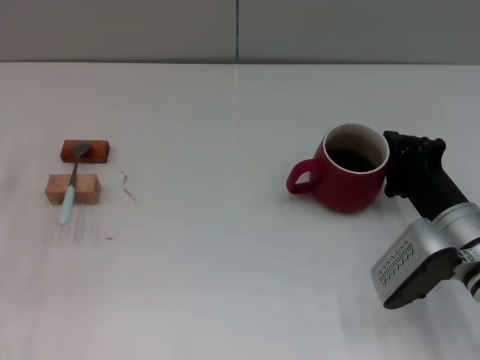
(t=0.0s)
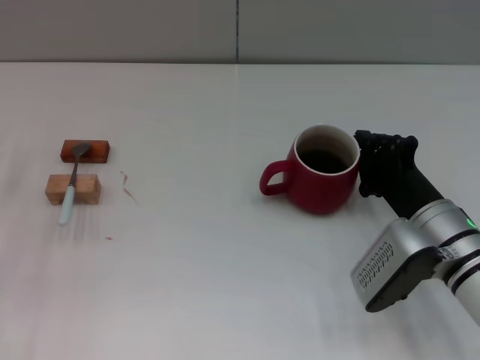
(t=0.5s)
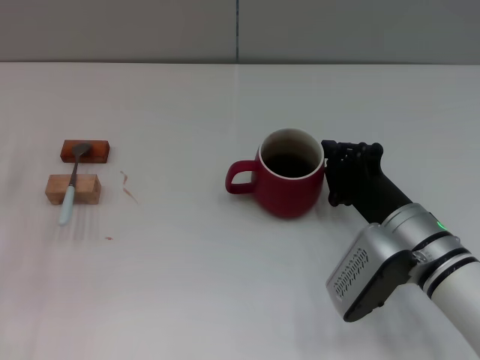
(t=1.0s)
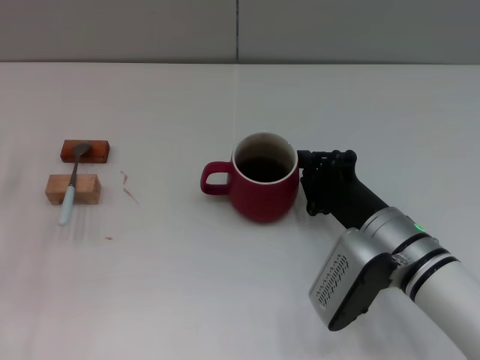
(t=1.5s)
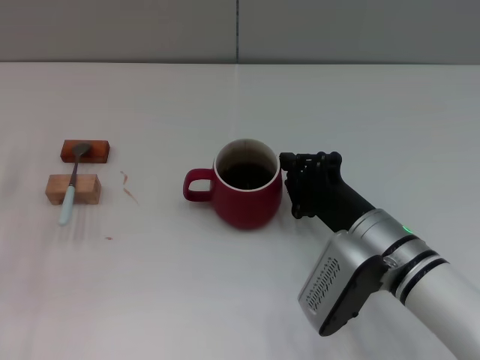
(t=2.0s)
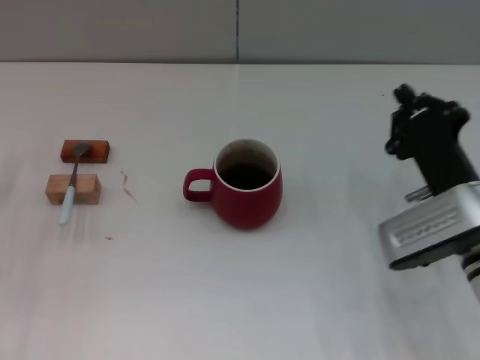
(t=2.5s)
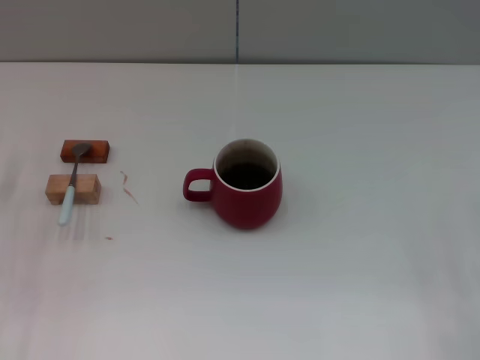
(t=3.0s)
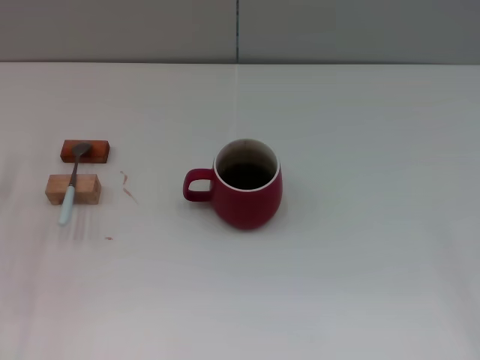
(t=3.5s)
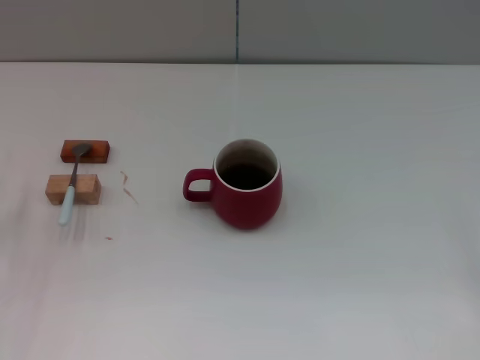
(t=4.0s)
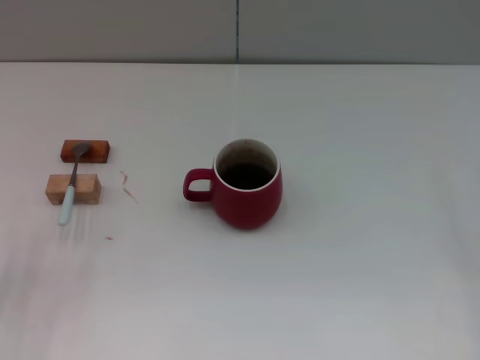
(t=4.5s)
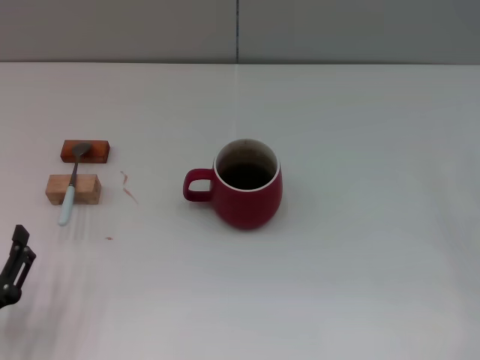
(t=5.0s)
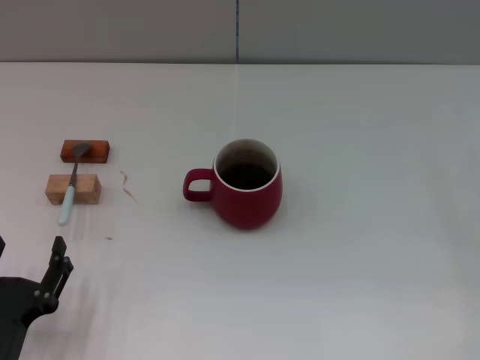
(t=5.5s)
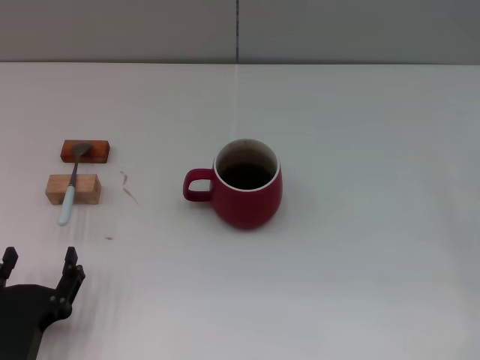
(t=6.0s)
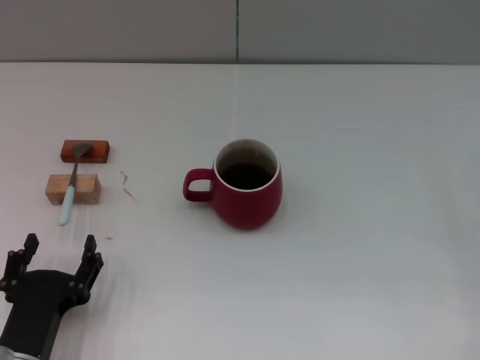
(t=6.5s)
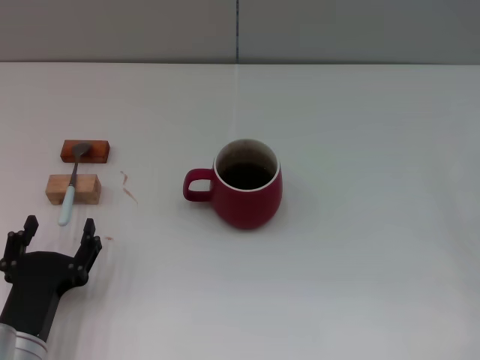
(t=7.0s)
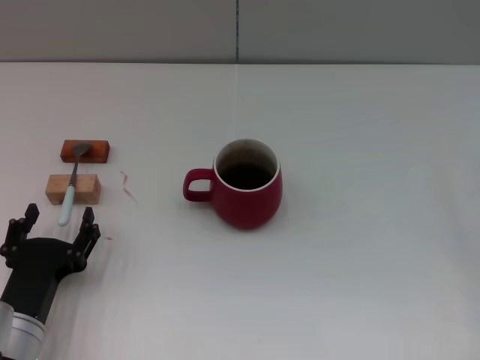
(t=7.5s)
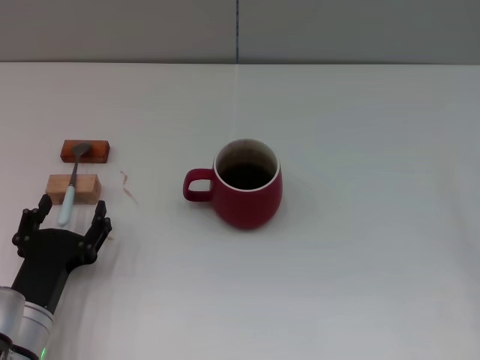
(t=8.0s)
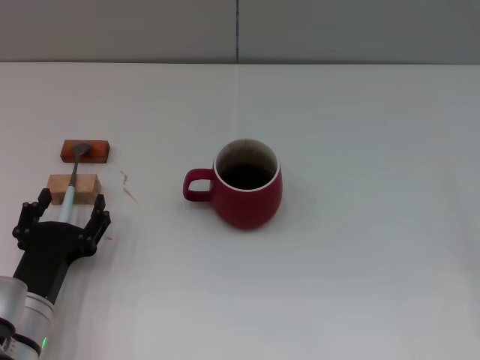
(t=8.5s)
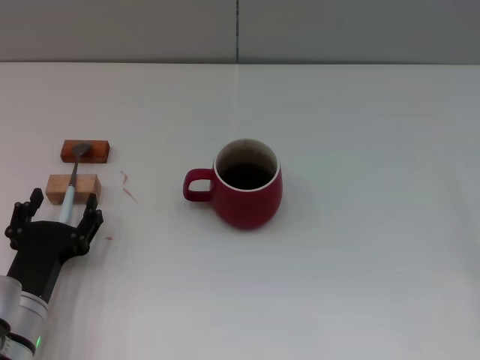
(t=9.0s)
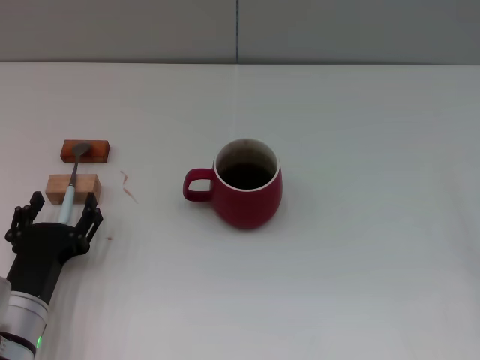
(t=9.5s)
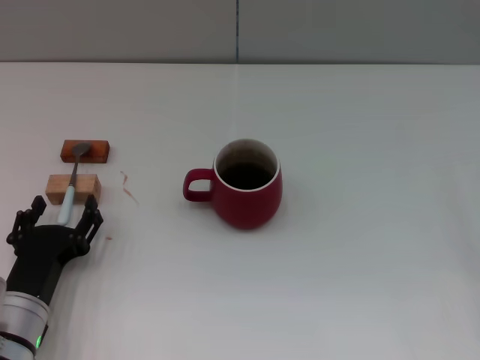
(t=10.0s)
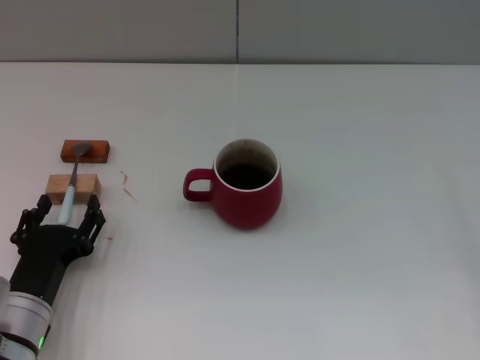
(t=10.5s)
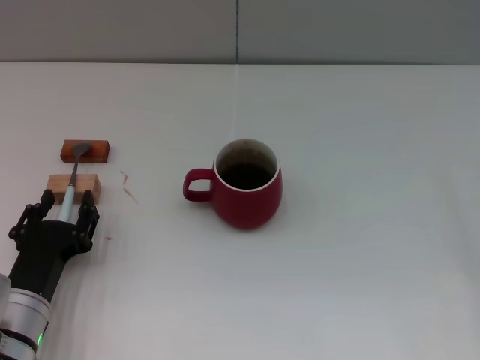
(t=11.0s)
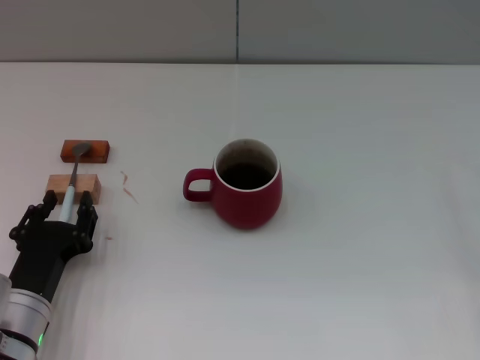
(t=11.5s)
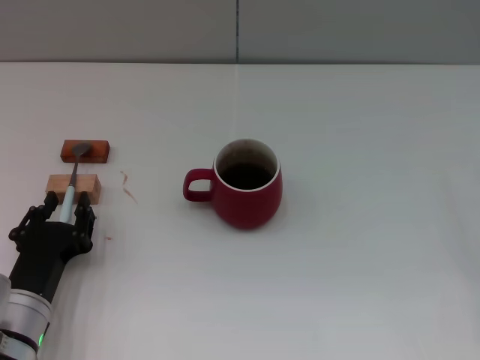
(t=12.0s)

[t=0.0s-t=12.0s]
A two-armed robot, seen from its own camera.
Task of the whole recording: Move the red cup to the center, lift the blue spoon, stir it three times in the cup, and put the spoon into the cup.
Step, t=0.0s to t=2.0s: Move the cup with coffee to the center of view with the right gripper.
t=0.0s to t=2.0s: The right gripper moves to the left, about 10 cm.
t=2.0s to t=4.0s: The left gripper ends up approximately 5 cm from where it was. Meanwhile the right gripper shifts about 25 cm to the right, and opens up.
t=4.0s to t=6.0s: The left gripper is displaced backward and to the right by about 20 cm.
t=6.0s to t=8.0s: The left gripper travels forward by approximately 5 cm.
t=8.0s to t=10.0s: There are only small adjustments of the grippers.
t=10.0s to t=12.0s: The left gripper closes its fingers.

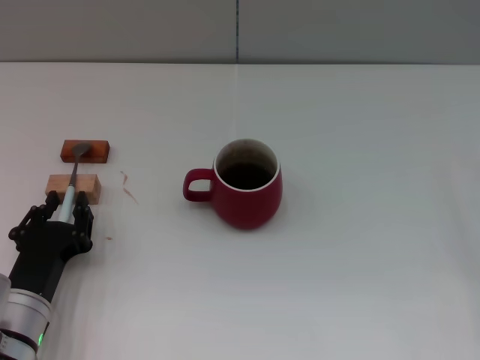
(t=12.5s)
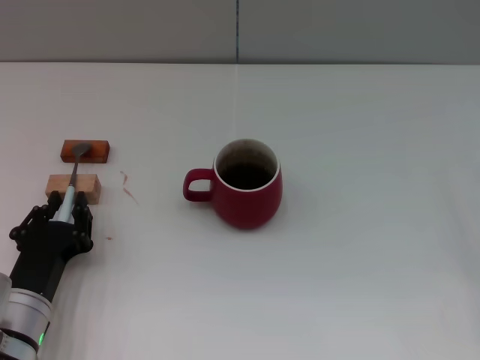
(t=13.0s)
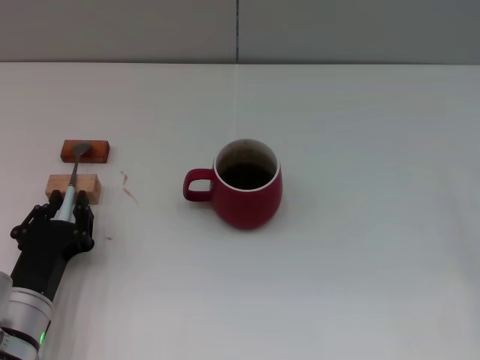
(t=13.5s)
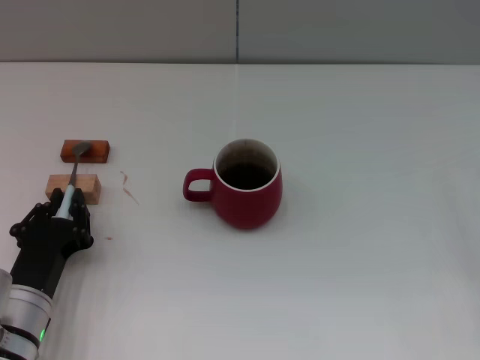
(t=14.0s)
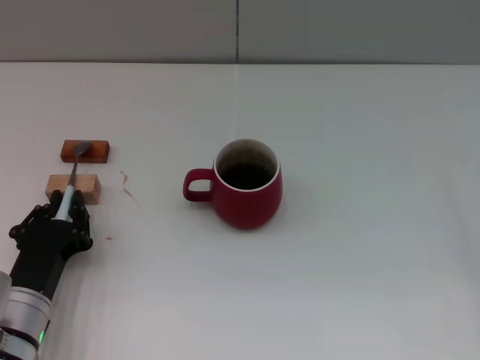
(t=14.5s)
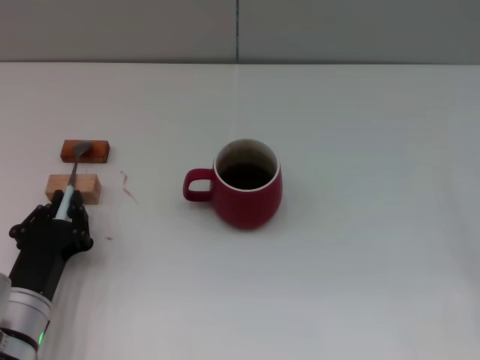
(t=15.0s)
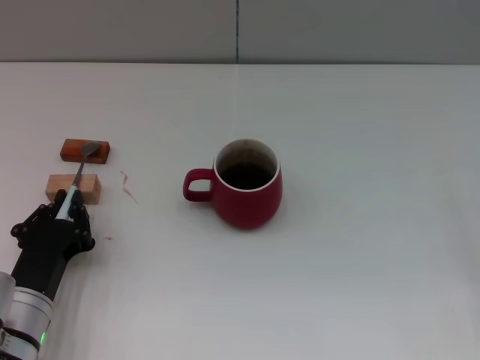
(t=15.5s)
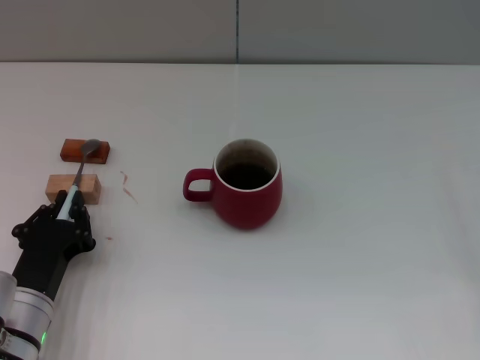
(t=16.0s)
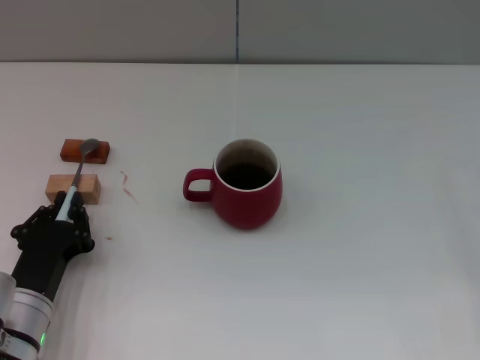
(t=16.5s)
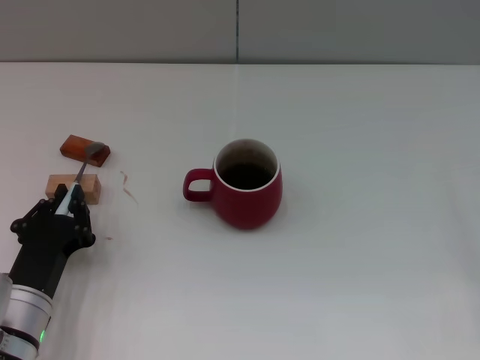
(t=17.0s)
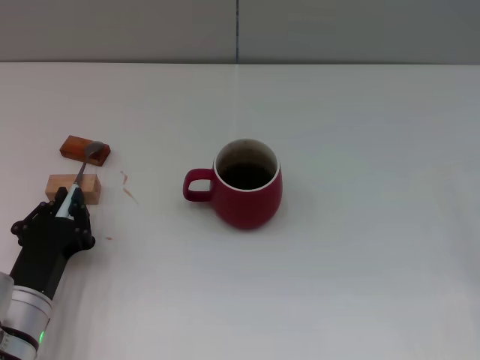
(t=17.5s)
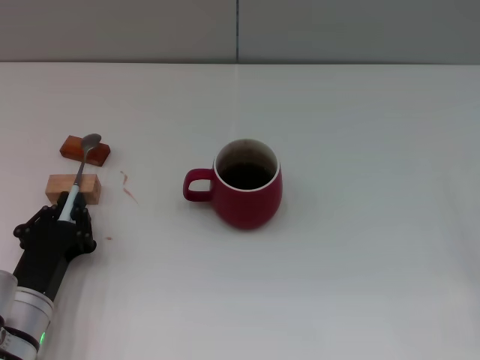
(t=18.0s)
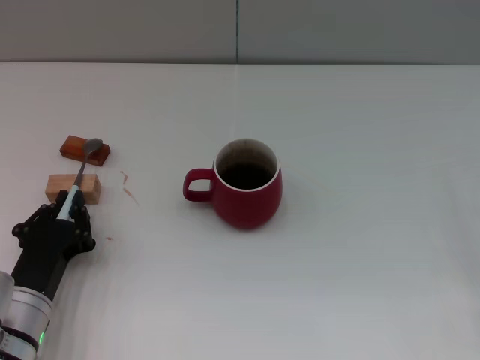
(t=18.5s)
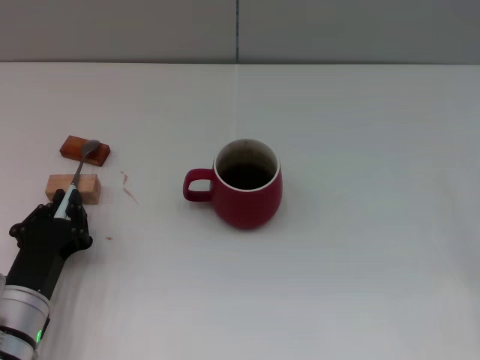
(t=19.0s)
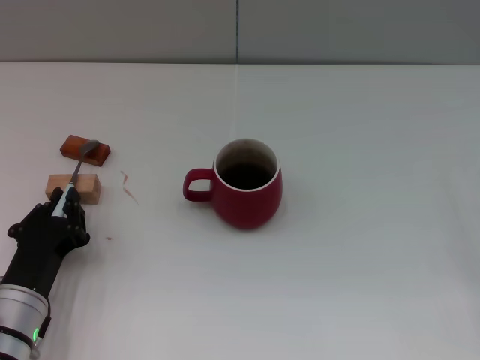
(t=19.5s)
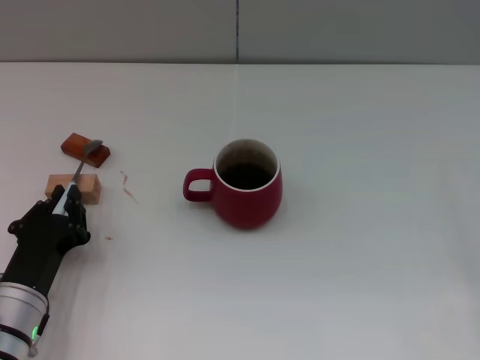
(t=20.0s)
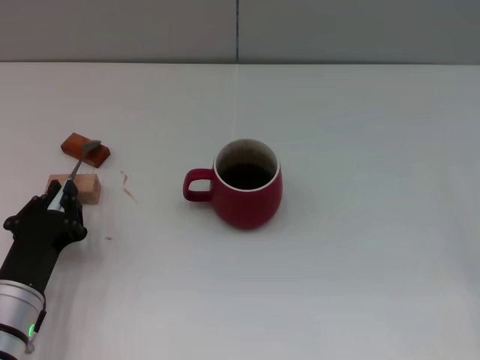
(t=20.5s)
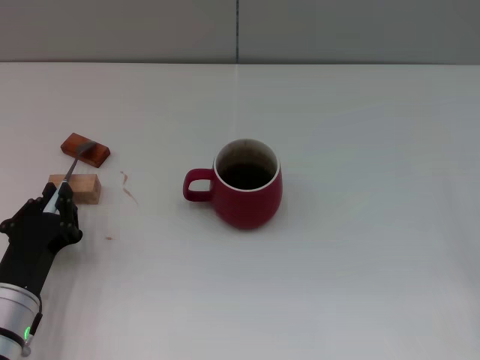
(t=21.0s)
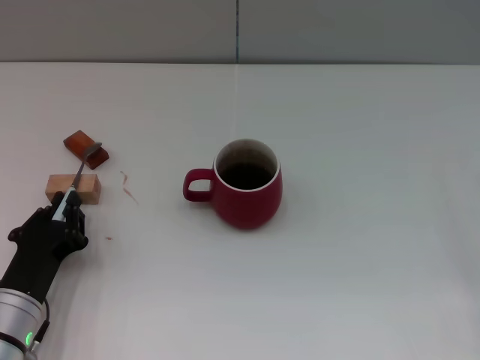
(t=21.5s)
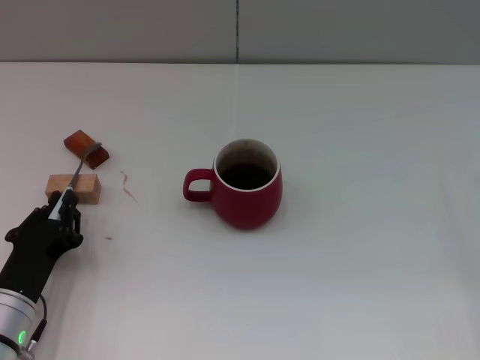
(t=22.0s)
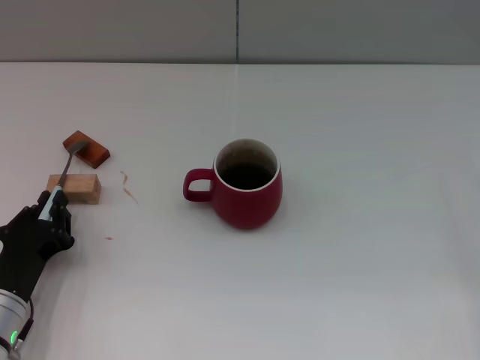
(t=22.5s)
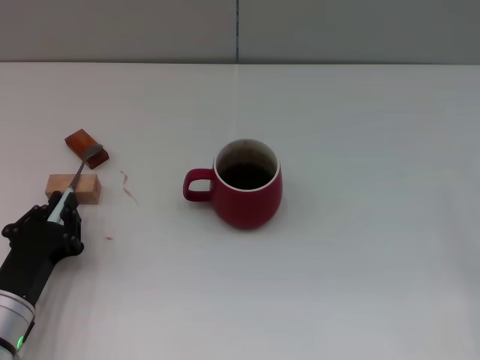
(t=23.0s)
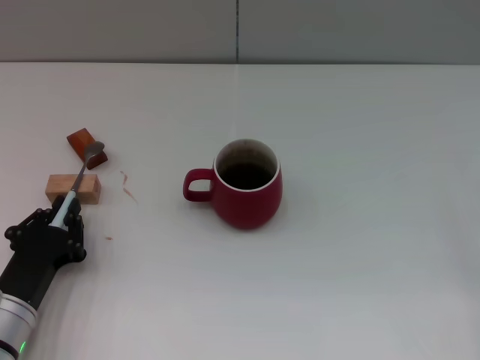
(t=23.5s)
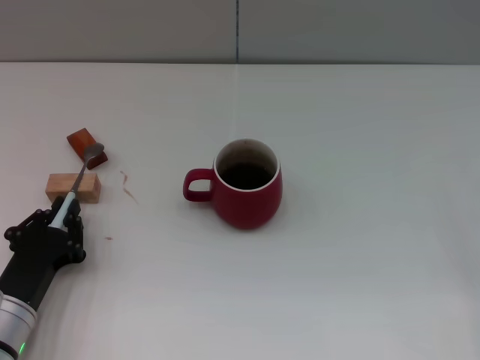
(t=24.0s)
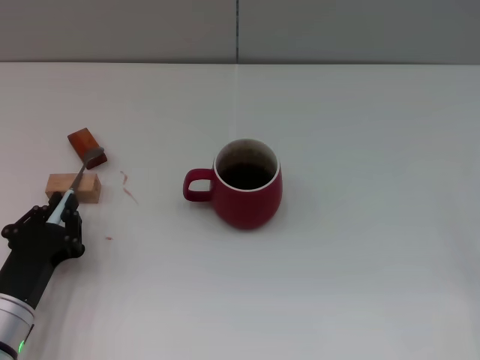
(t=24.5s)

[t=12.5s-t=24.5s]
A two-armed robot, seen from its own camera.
Task of the whole recording: Move the red cup to the center, lift the blue spoon, stir it three times in the cup, and put the spoon into the cup.
t=12.5s to t=18.5s: The two grippers keep their place.
t=18.5s to t=24.5s: The grippers make only small movements.

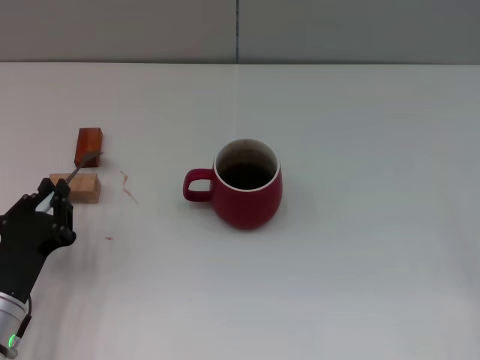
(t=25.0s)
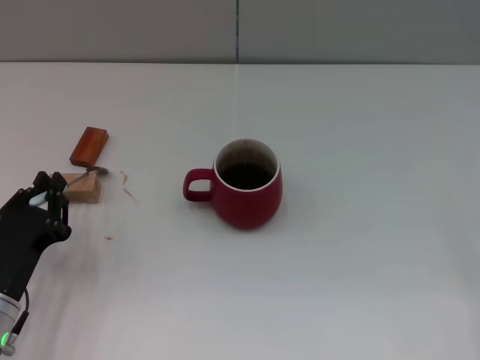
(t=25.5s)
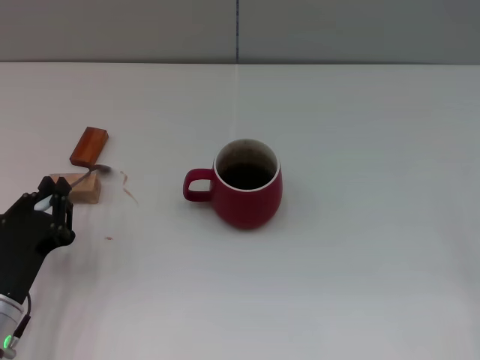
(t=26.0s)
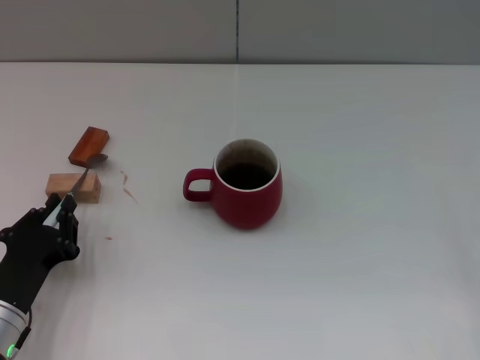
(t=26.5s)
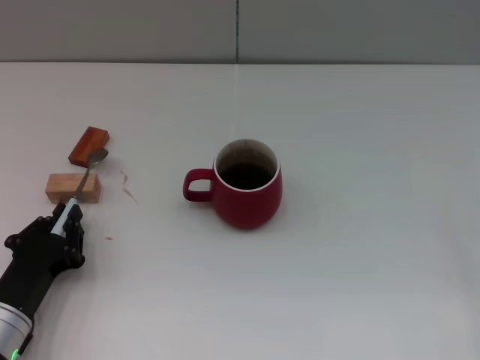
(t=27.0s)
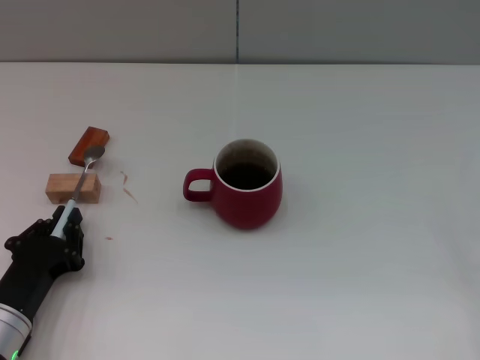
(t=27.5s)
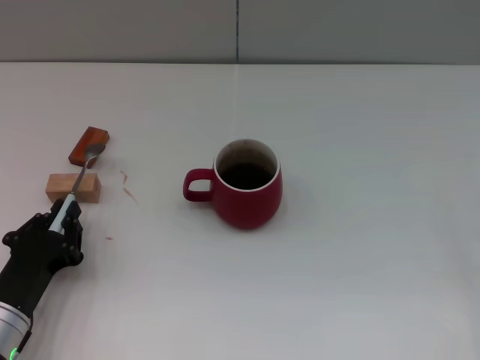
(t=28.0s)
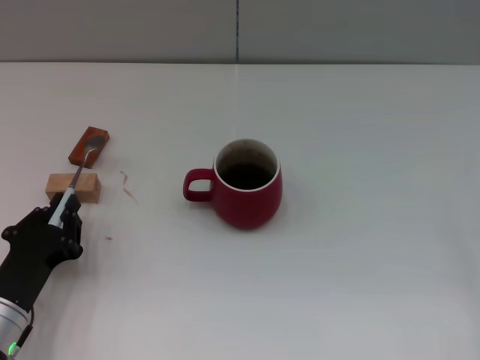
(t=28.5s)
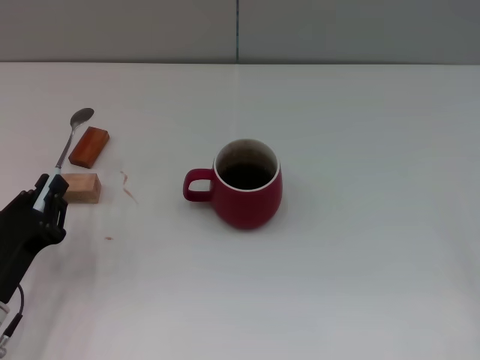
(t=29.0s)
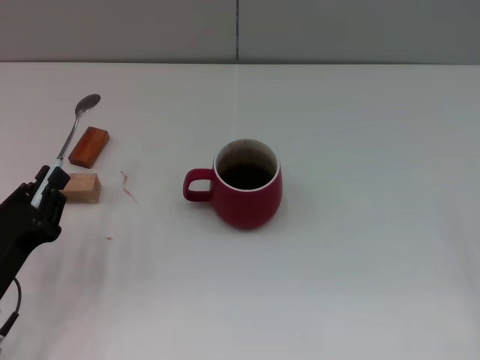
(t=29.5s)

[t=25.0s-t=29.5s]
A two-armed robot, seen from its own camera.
Task of the whole recording: Move the red cup to the center, lift the blue spoon, stir it three times in the cup, and put the spoon into the cup.
t=25.0s to t=27.0s: The grippers make only small movements.
